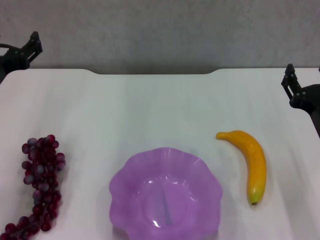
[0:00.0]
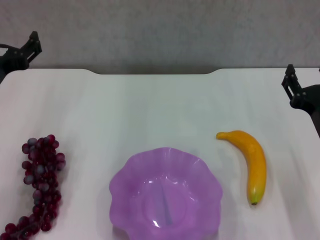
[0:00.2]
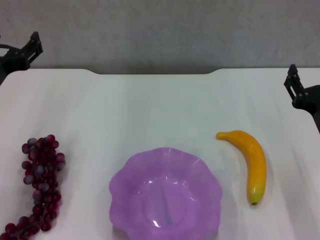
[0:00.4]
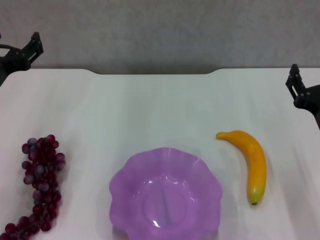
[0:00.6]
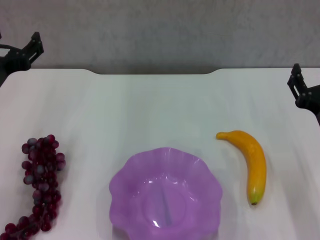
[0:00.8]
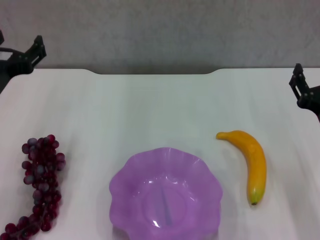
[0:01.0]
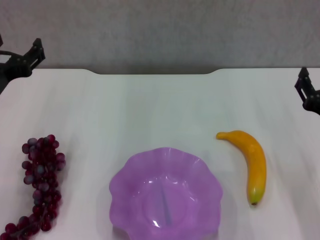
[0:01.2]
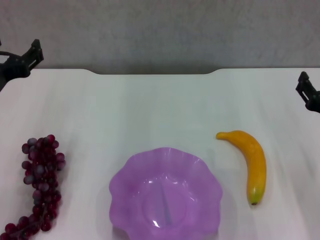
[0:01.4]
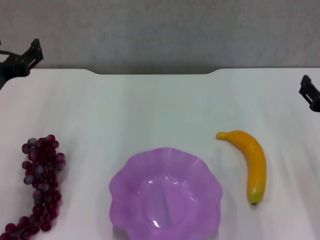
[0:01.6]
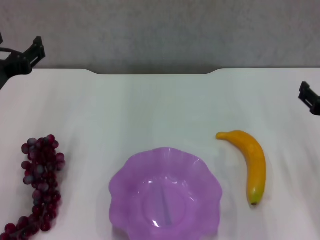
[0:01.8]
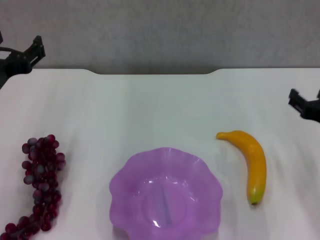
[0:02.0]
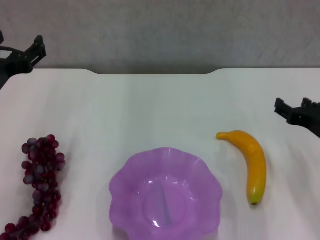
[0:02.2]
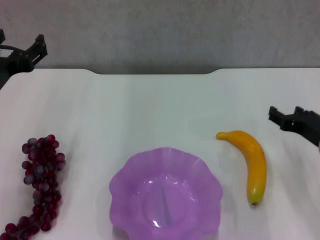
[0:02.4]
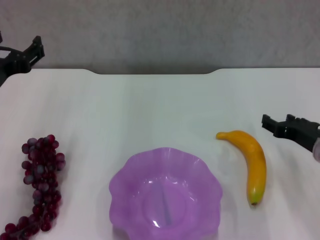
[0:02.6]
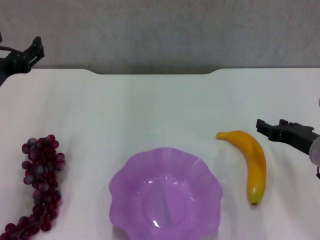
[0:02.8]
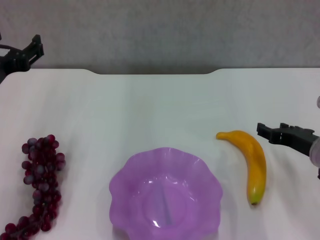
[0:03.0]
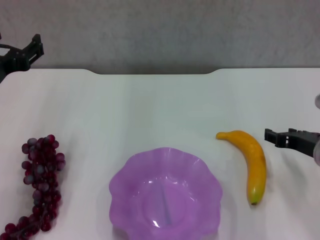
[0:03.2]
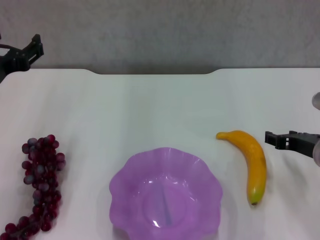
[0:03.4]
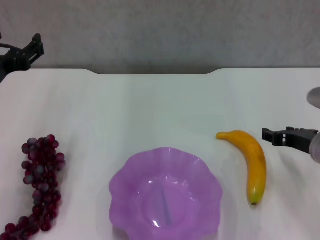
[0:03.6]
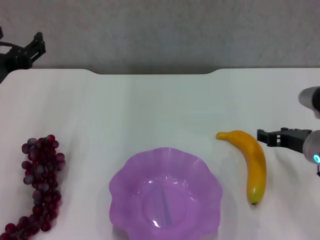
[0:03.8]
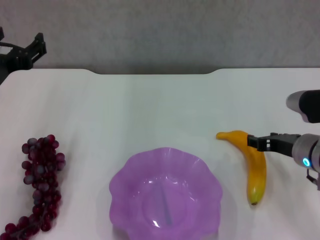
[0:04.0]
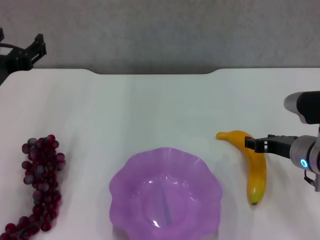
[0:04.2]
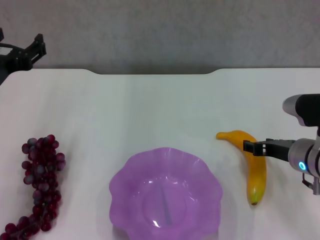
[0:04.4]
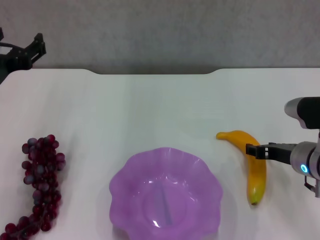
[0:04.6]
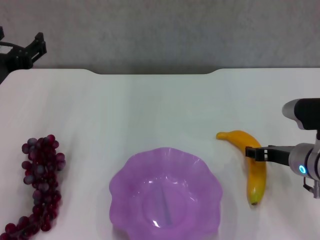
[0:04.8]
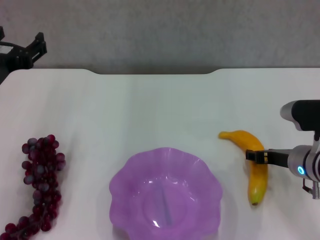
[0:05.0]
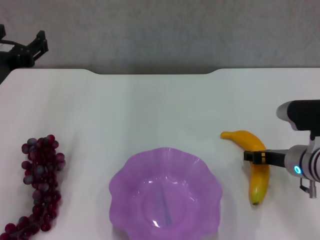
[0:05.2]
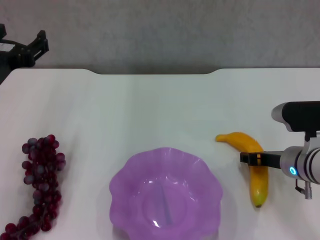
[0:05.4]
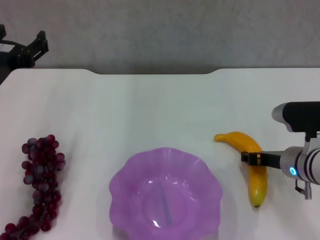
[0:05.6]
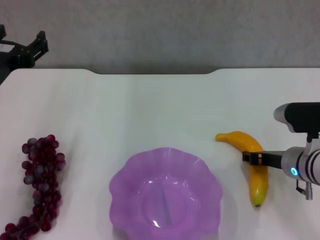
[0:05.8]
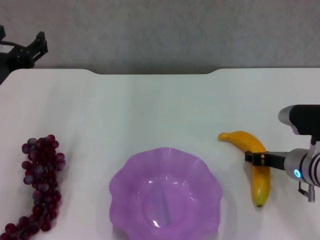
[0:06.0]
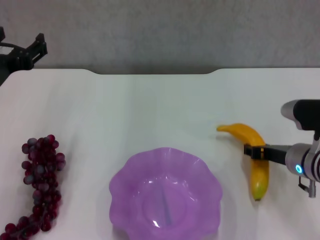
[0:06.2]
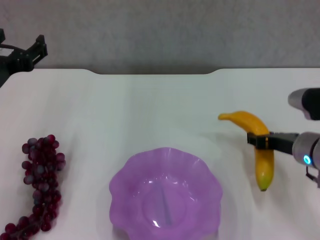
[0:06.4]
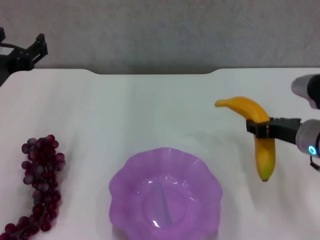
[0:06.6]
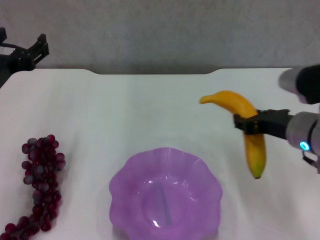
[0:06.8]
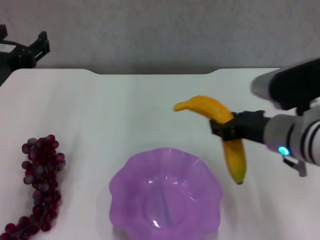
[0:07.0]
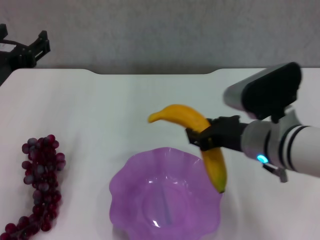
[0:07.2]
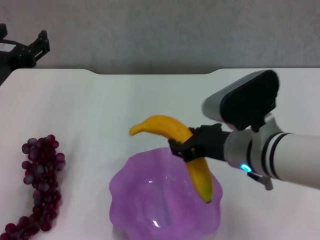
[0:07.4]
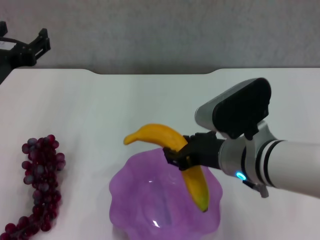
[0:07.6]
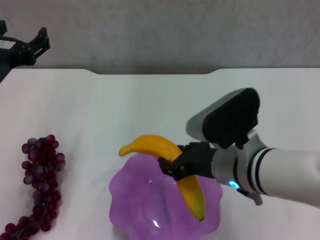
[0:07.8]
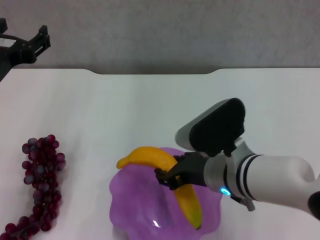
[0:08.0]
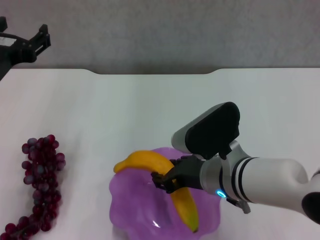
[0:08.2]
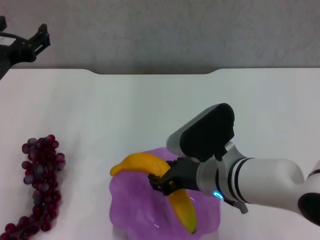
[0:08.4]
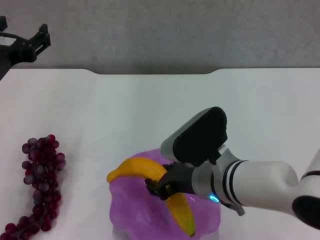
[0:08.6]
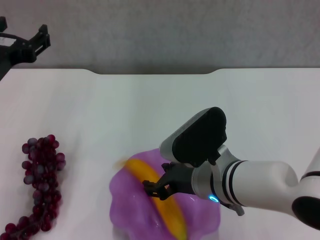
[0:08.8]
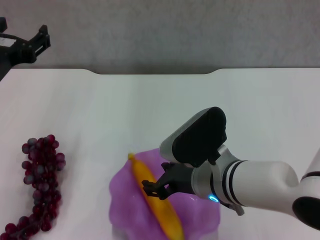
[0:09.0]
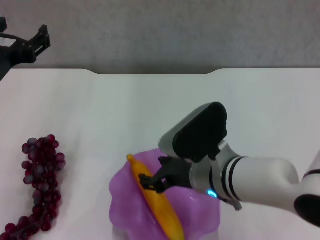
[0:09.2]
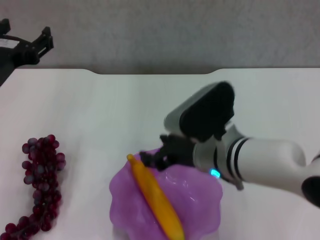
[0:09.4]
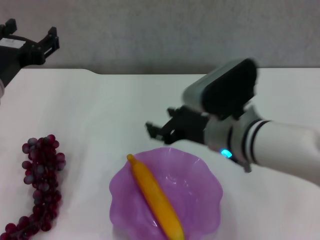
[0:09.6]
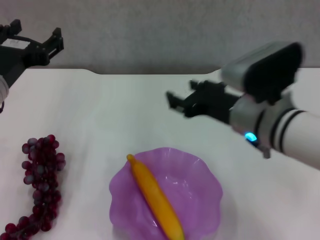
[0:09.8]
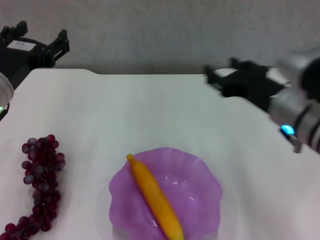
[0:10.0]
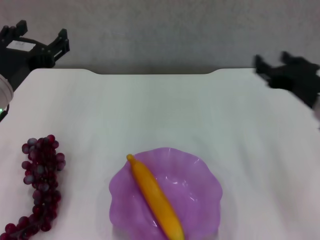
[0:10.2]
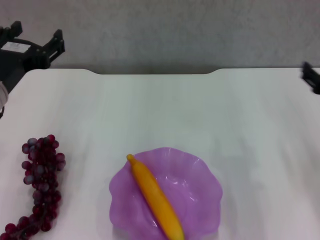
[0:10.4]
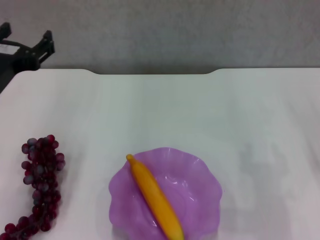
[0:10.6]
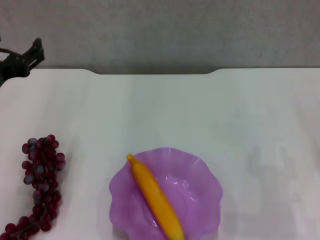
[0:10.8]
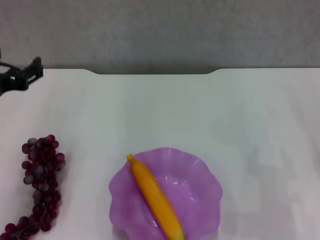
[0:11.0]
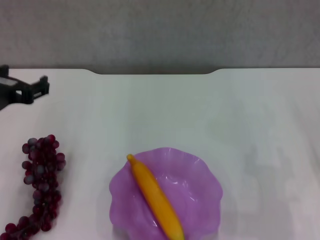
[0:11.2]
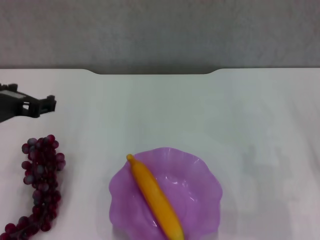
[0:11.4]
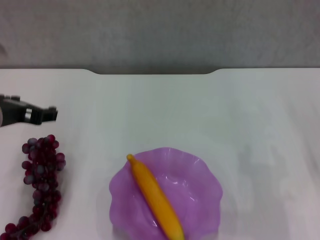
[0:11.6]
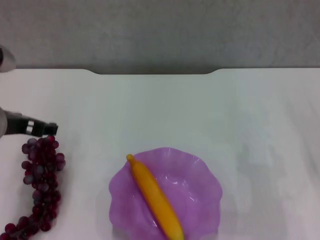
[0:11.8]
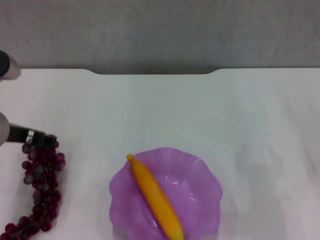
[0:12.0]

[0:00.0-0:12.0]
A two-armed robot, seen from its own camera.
Step, 0:00.0 to 0:05.6: Grasp the banana with right gripper.
Step, 0:05.8 to 0:09.2: Place the banana in the purple plate with right gripper.
0:00.0 to 0:01.6: The grippers move only a little.
0:01.6 to 0:03.0: The right gripper ends up approximately 5 cm from where it was.
0:03.0 to 0:04.4: The grippers stay close to where they were, moving slightly.
0:04.4 to 0:06.0: The right gripper closes up.
0:06.0 to 0:07.6: The right gripper is displaced to the left and upward by about 15 cm.
0:07.6 to 0:09.0: The right gripper opens up.
0:09.0 to 0:10.4: The right gripper moves to the right, some 20 cm.

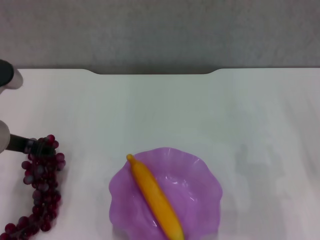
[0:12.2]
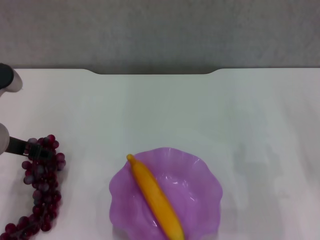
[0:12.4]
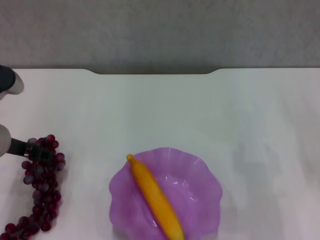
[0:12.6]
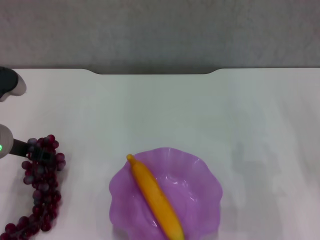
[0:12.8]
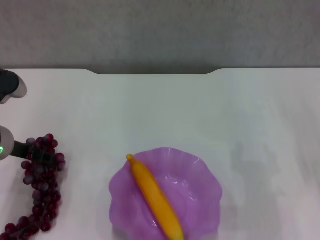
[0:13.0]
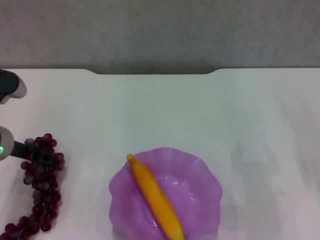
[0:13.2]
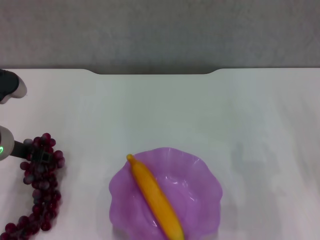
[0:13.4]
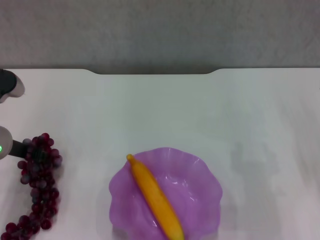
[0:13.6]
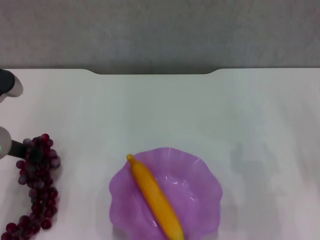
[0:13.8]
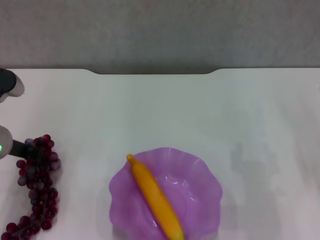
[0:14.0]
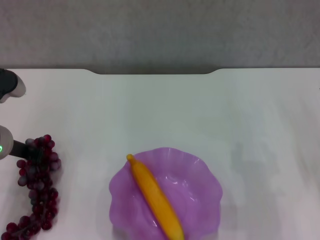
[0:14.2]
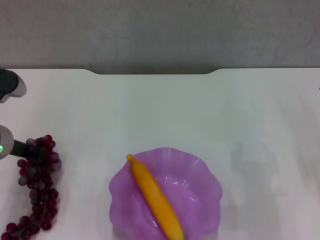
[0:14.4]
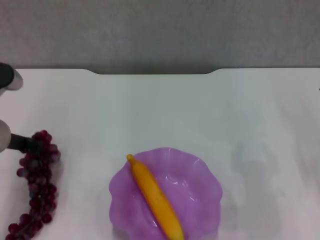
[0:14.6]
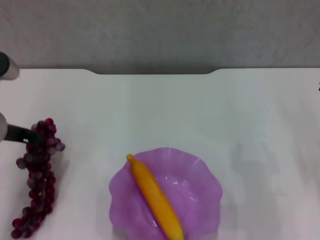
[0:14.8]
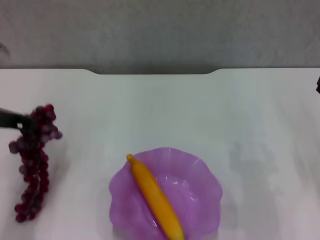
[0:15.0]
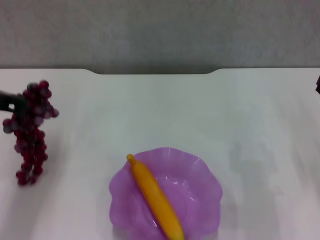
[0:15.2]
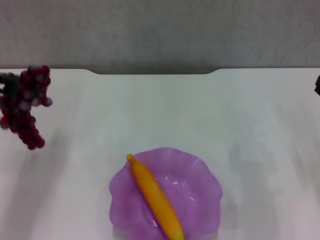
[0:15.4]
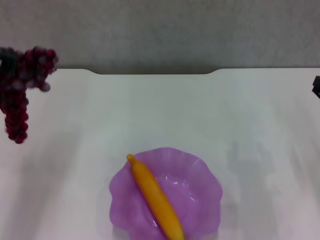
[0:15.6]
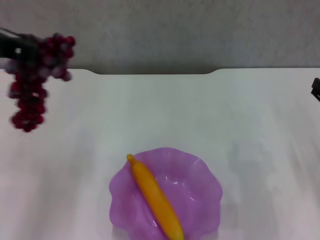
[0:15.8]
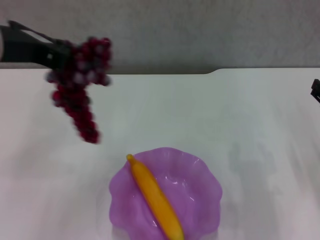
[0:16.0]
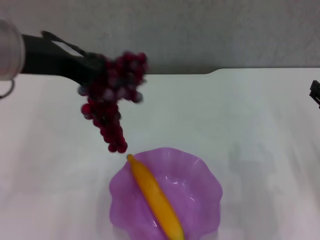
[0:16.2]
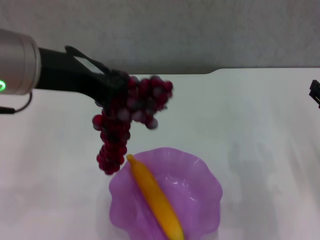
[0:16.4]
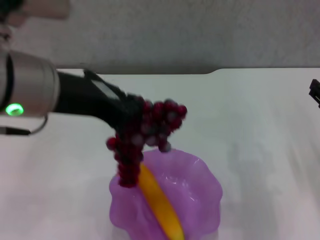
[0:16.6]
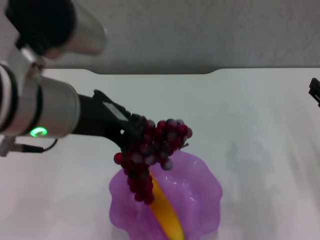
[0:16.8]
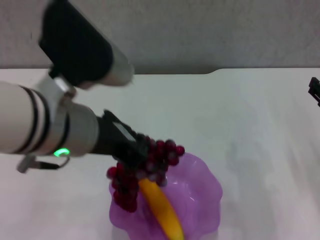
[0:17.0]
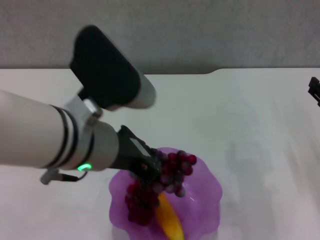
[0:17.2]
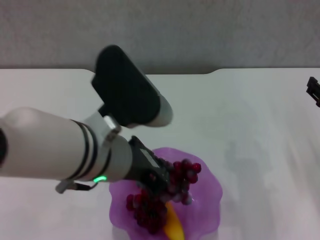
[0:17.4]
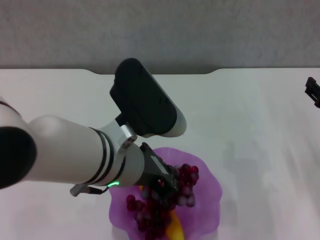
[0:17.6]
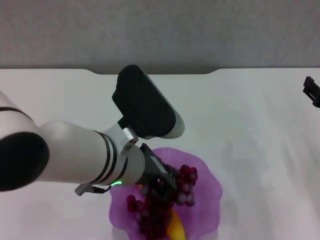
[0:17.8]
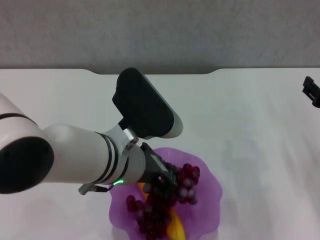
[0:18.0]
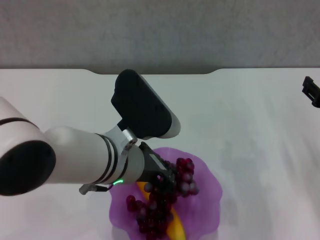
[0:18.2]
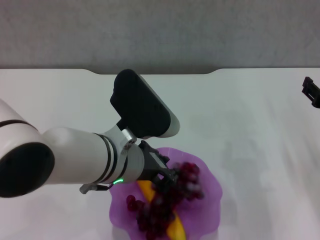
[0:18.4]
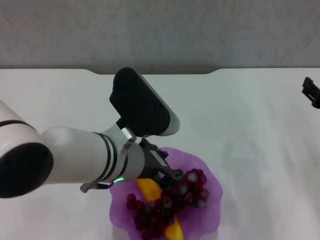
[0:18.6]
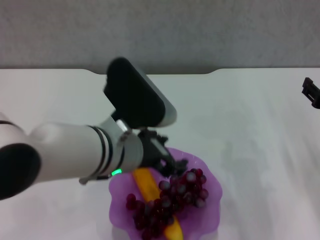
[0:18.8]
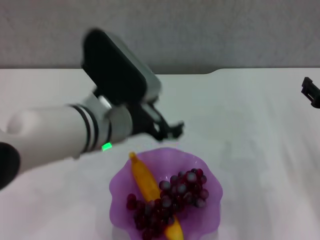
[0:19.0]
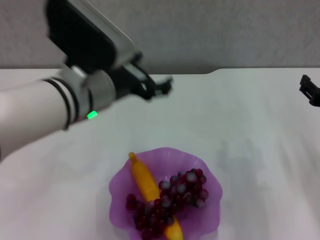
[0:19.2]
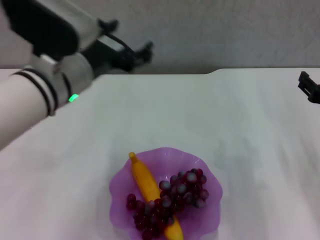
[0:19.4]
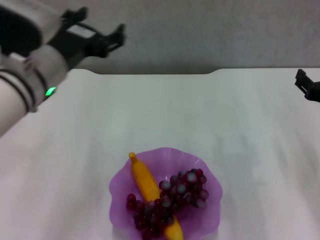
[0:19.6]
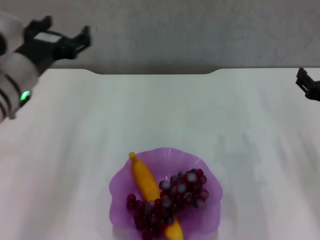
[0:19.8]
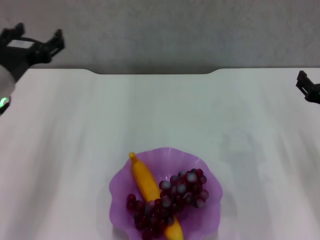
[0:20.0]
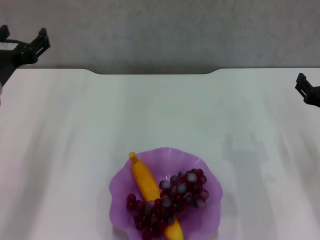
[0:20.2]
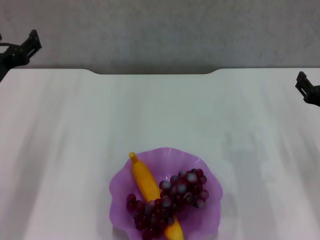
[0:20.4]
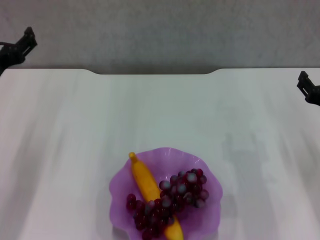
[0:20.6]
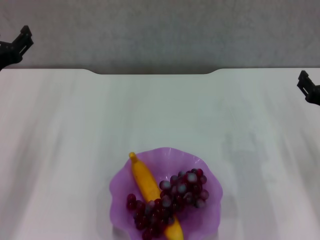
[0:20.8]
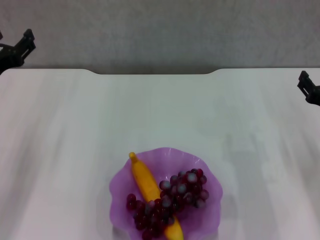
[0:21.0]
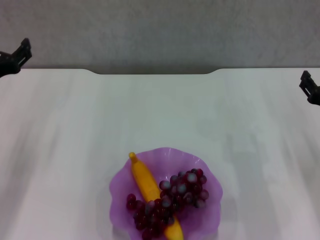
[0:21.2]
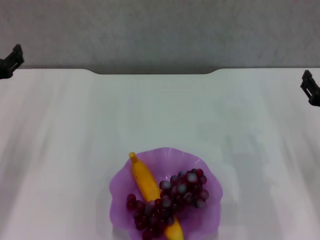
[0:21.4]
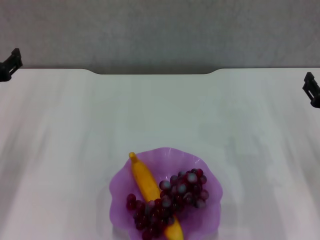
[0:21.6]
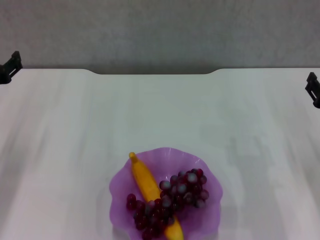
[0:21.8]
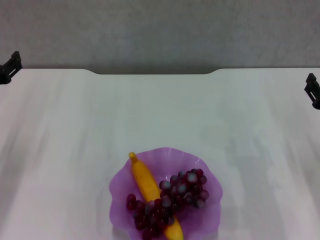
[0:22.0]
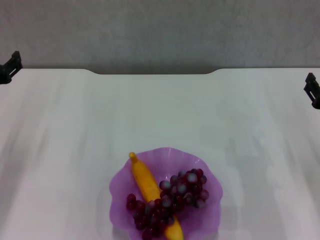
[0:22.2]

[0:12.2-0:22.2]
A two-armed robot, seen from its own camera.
Step, 0:13.8 to 0:18.6: Place the grape in the purple plate with left gripper.
0:12.2 to 0:13.6: The grippers make only small movements.
0:13.6 to 0:15.0: The left gripper shifts roughly 5 cm upward, and closes.
0:15.0 to 0:16.4: The left gripper heads upward, to the right and backward, covering approximately 15 cm.
0:16.4 to 0:18.0: The left gripper shifts some 15 cm downward and to the right.
0:18.0 to 0:19.4: The left gripper shifts approximately 10 cm to the left and forward, and opens up.
0:19.4 to 0:20.8: The left gripper shifts some 15 cm to the left and downward.
0:20.8 to 0:22.2: The grippers stay close to where they were, moving slightly.
